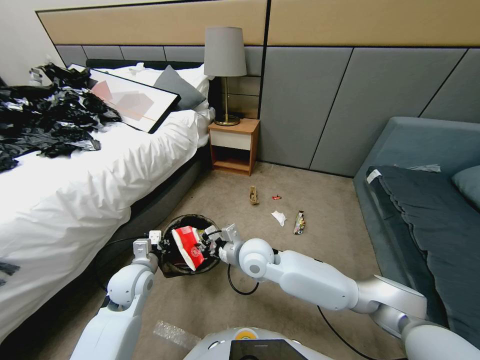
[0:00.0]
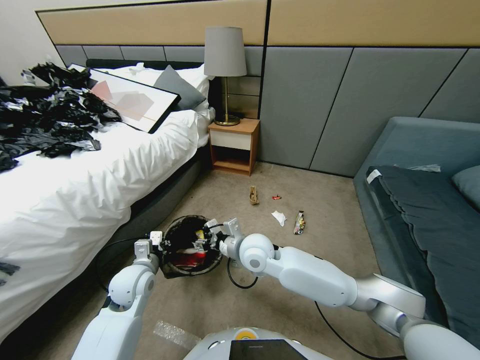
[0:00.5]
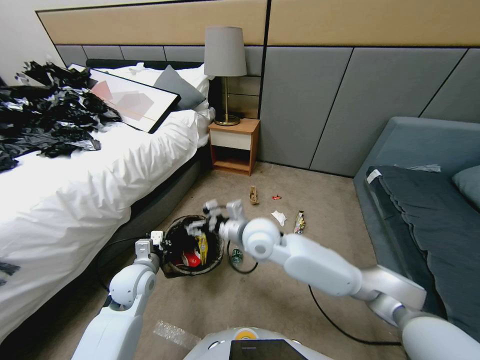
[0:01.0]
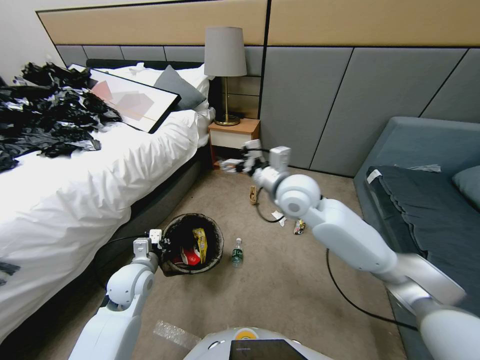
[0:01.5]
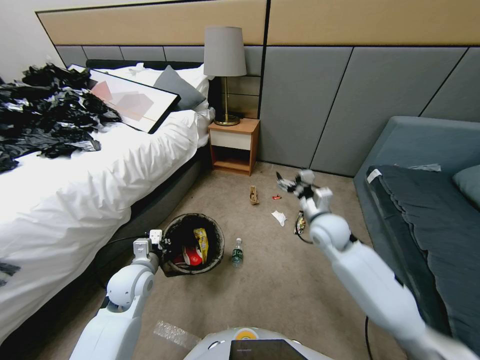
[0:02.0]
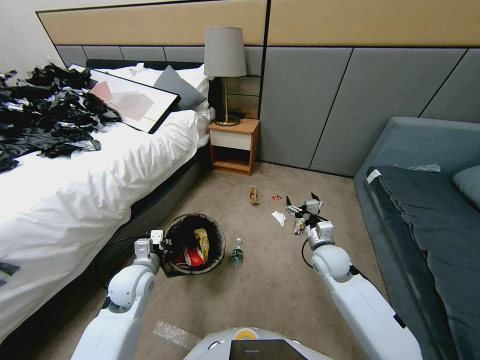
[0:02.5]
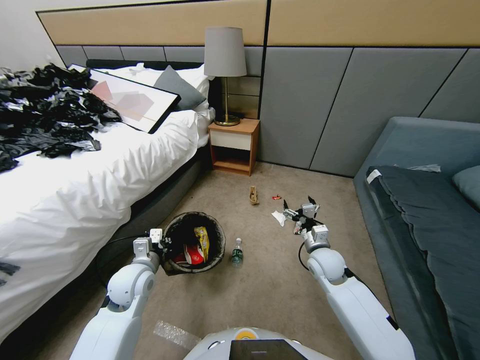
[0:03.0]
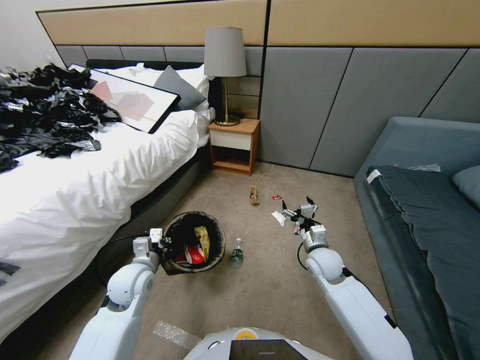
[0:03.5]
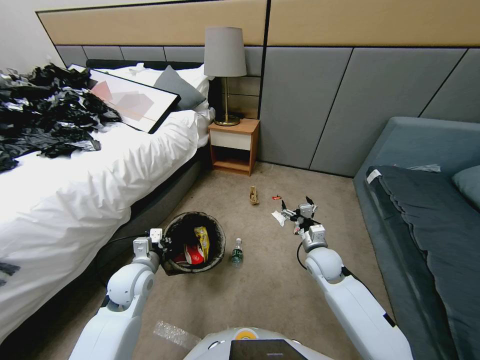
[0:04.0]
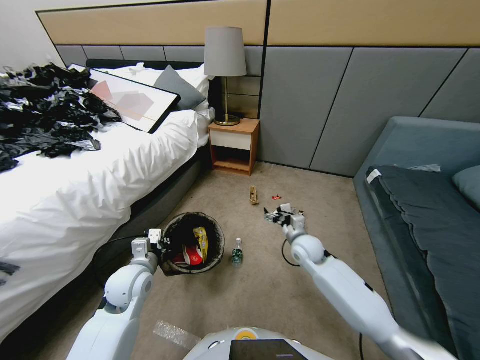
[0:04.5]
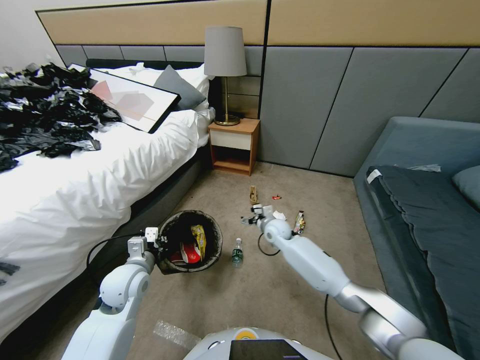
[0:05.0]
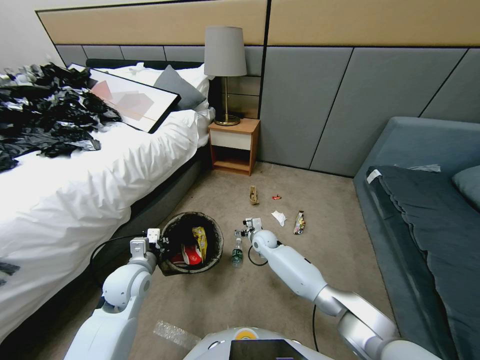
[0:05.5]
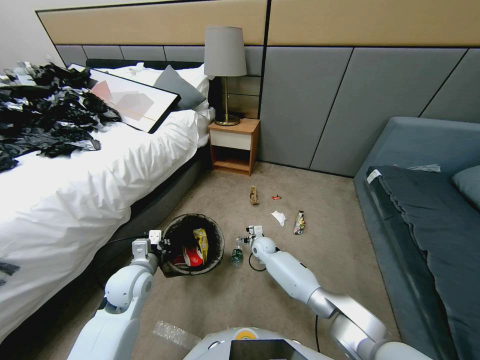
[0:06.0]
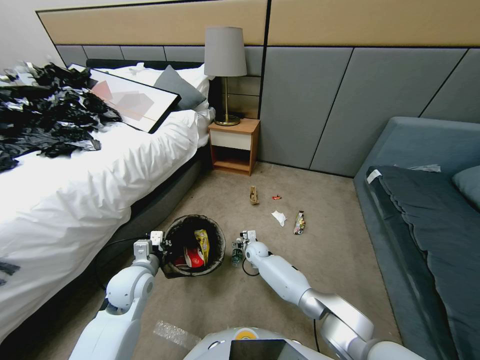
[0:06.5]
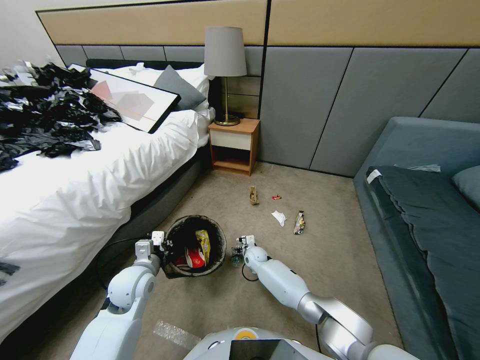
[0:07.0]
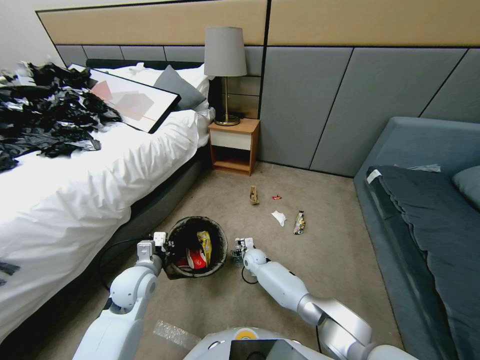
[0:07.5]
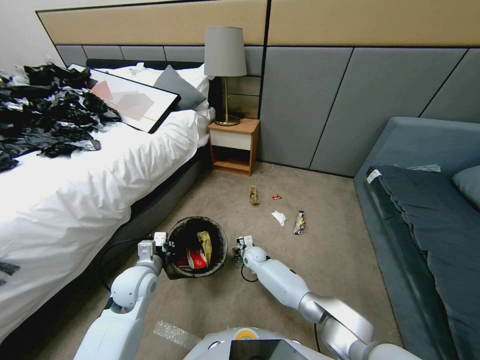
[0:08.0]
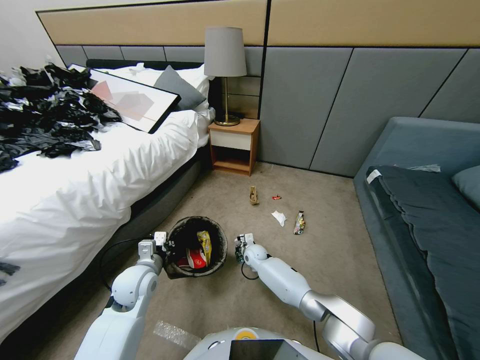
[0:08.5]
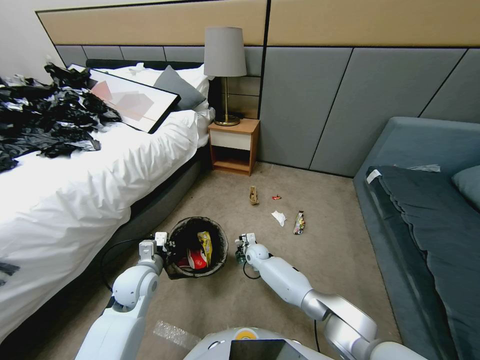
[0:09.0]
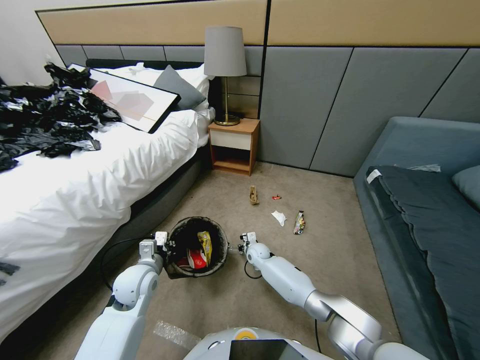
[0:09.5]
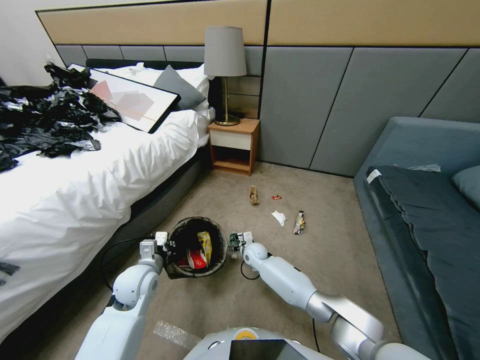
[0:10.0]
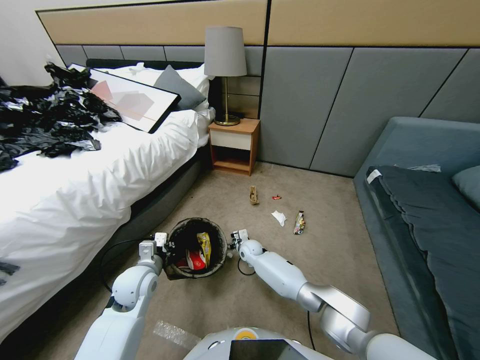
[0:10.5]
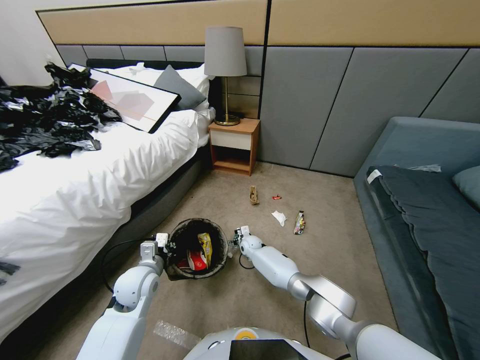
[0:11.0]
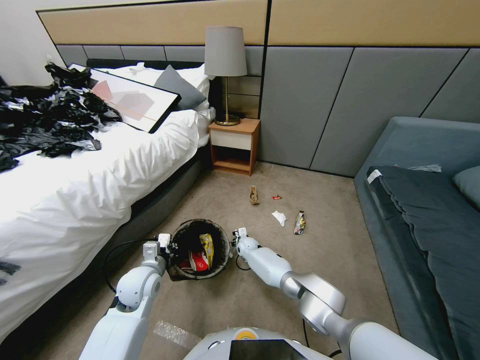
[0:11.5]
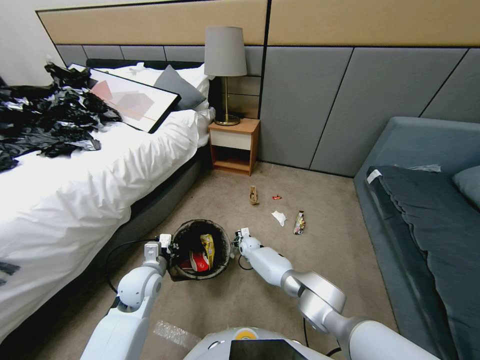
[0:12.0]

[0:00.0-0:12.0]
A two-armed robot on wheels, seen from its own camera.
Task of the whole recording: Pick up the trash bin, then pick up the garbage from the floor and place it into the trash bin.
0:00.0 to 0:02.0: The right gripper travels to the right by roughly 20 cm, and opens up.
0:02.0 to 0:04.0: The right gripper moves downward, some 5 cm.
0:04.0 to 0:06.0: The right gripper heads downward, to the left and forward, covering approximately 25 cm.
0:06.0 to 0:08.0: The right gripper closes.
0:08.0 to 0:10.0: The right gripper opens up.
0:10.0 to 0:12.0: The right gripper moves forward and downward, about 10 cm.

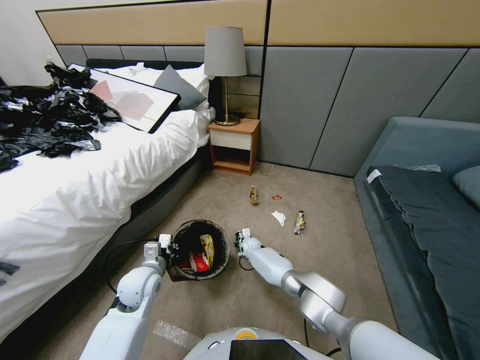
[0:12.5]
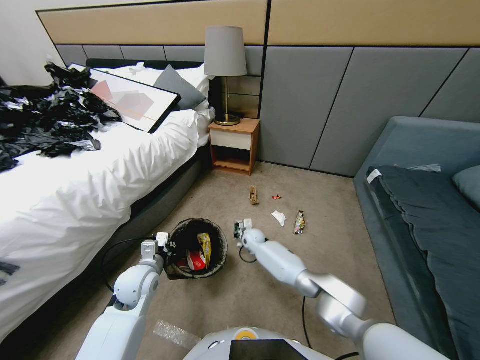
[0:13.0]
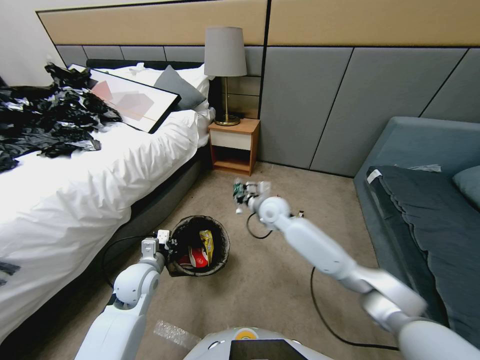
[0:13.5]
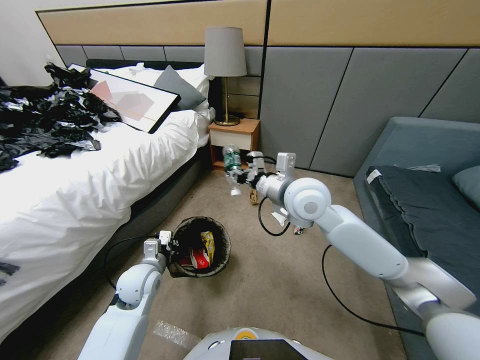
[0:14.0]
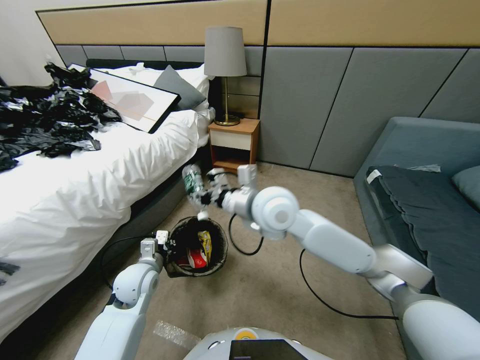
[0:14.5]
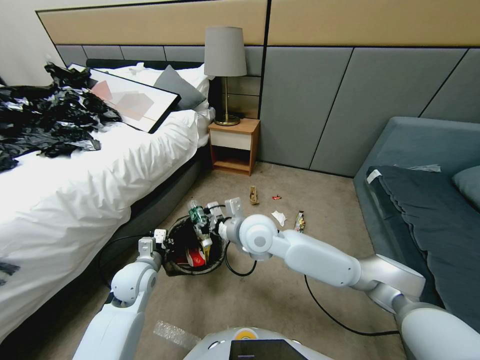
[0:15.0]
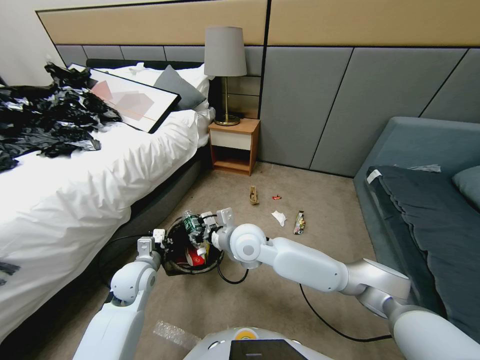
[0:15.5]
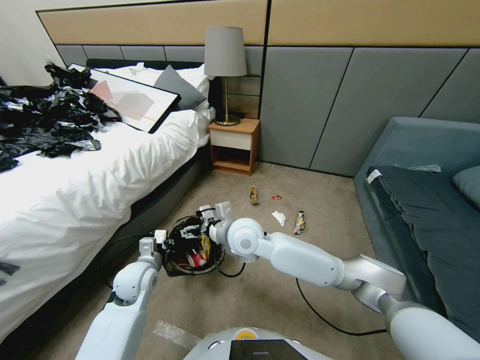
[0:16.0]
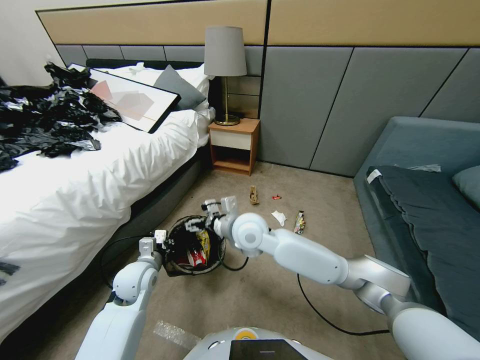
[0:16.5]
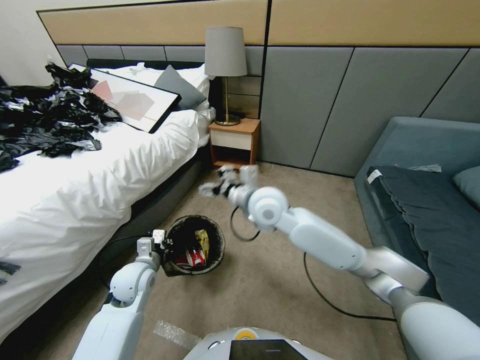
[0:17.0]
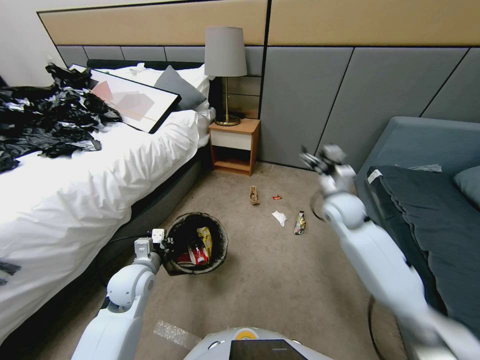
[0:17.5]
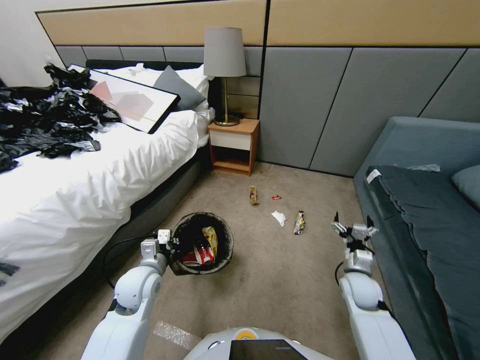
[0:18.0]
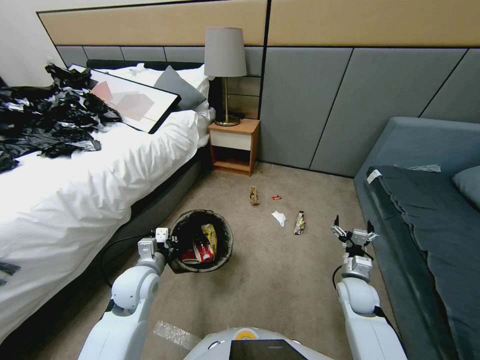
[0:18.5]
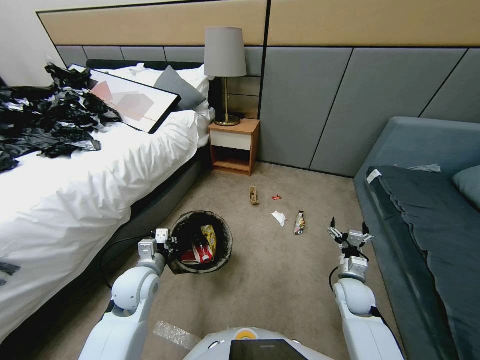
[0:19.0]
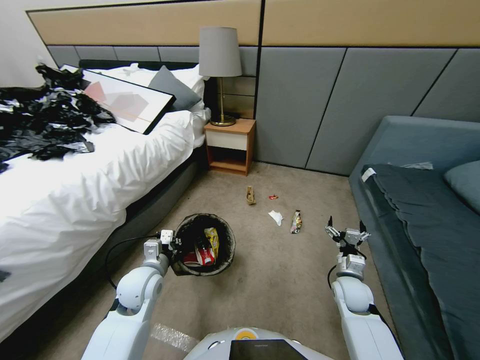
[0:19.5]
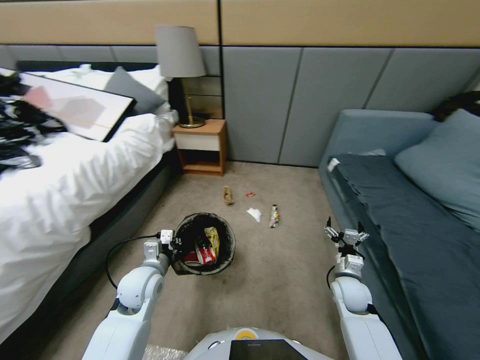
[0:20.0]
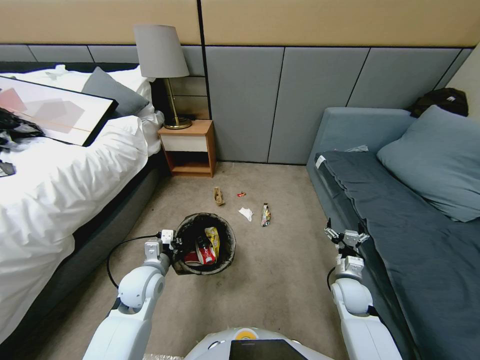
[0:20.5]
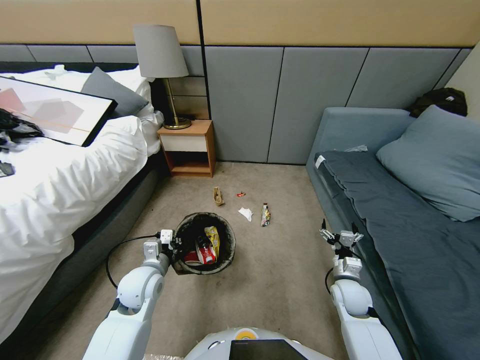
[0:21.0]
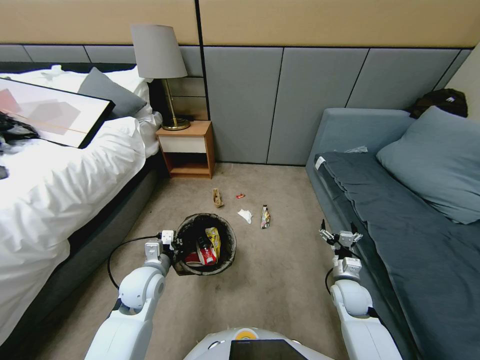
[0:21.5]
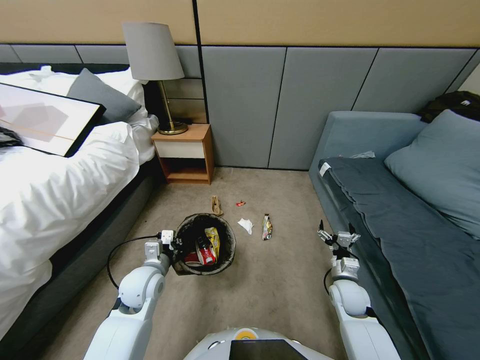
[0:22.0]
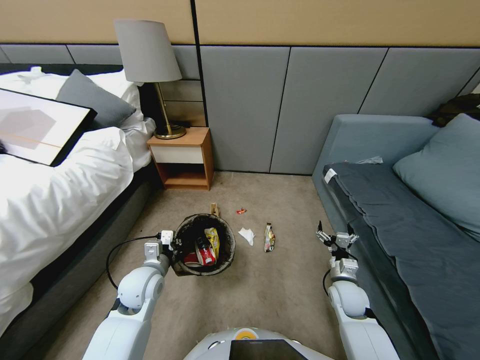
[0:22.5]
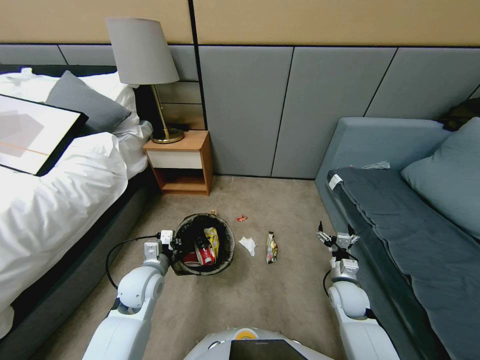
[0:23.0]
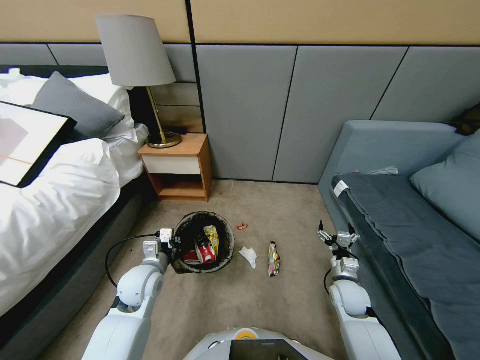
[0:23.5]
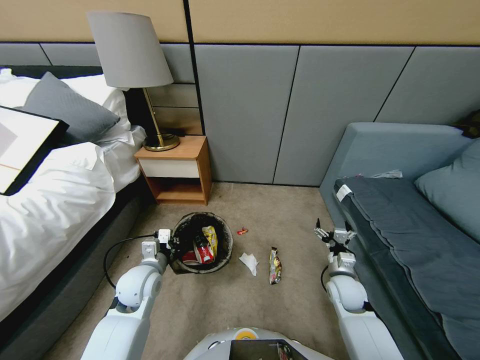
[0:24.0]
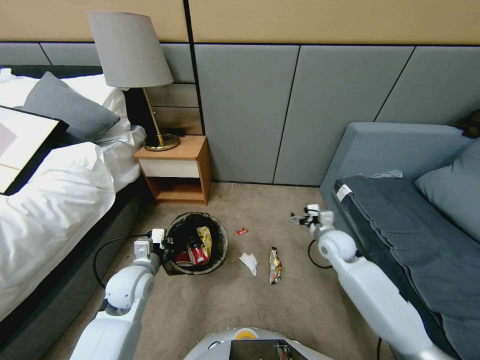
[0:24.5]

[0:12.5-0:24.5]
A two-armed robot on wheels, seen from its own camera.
Task of the whole recording: Pick up the trash bin, then pick up the garbage from the floor and place it into the trash bin.
0:12.5 to 0:14.5: The right gripper moves upward, approximately 40 cm.
0:14.5 to 0:16.5: The right gripper heads downward, covering approximately 5 cm, and opens its fingers.
0:16.5 to 0:18.5: The right gripper travels to the right and downward by roughly 40 cm.
0:22.5 to 0:24.5: The right gripper shifts about 20 cm forward and upward.

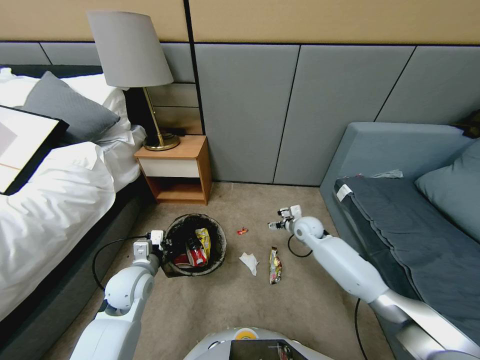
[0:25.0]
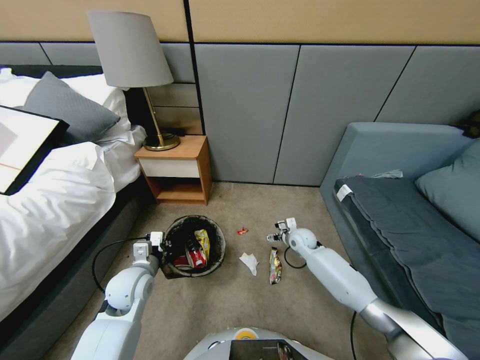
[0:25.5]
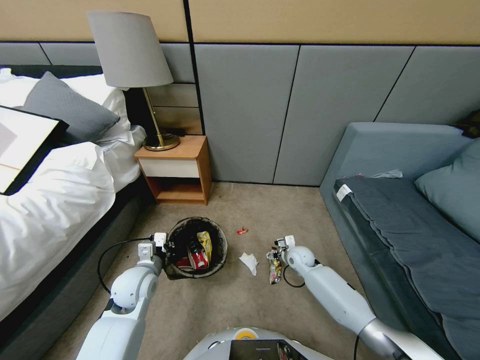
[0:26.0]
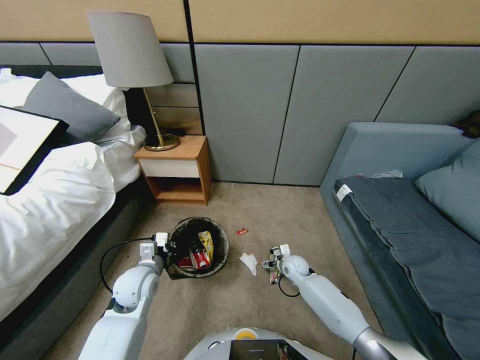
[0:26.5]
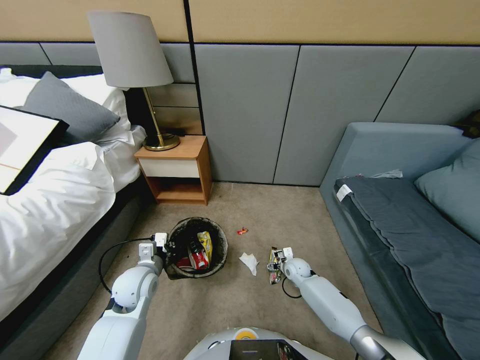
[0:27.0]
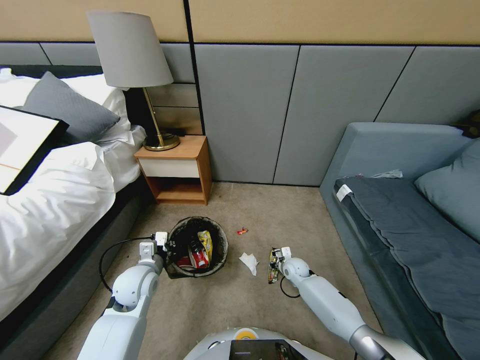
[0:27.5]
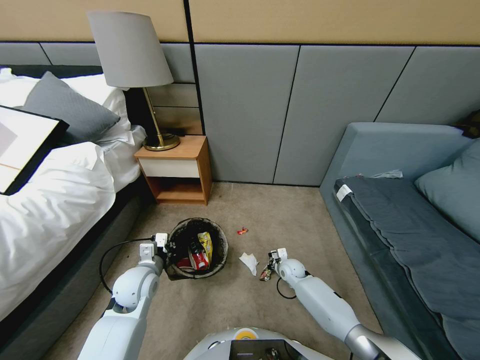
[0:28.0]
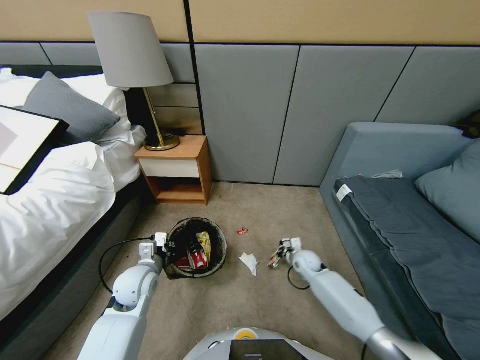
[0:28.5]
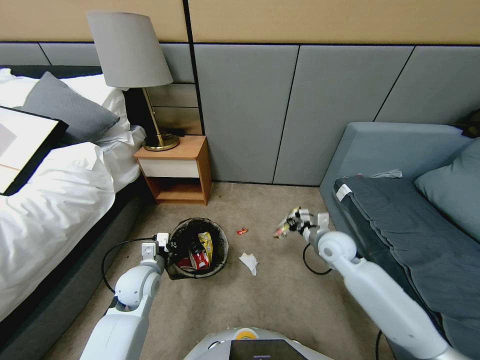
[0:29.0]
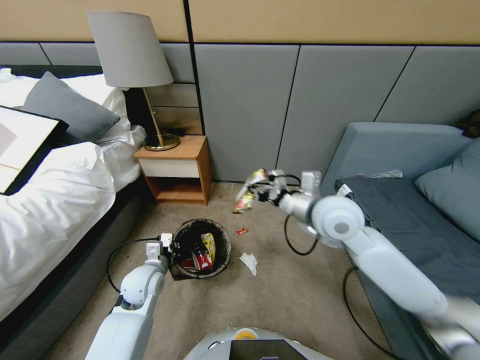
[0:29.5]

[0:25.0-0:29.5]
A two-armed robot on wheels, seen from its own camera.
Task of the whole recording: Pick up the trash bin, then pick up the garbage from the floor and place it into the trash bin.
0:25.0 to 0:27.0: The right gripper goes some 15 cm downward and backward.
0:27.0 to 0:29.5: The right gripper heads upward, covering about 40 cm, and closes.
